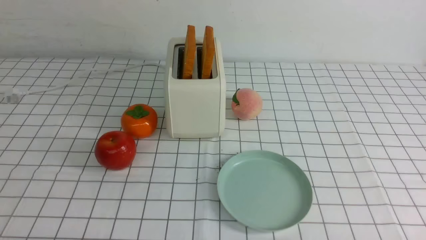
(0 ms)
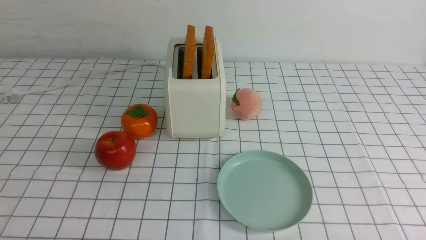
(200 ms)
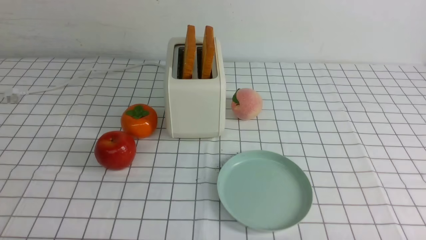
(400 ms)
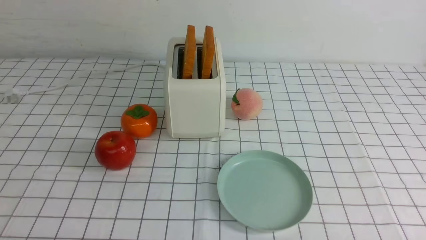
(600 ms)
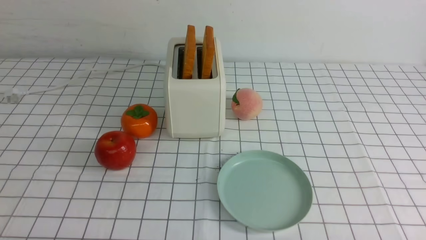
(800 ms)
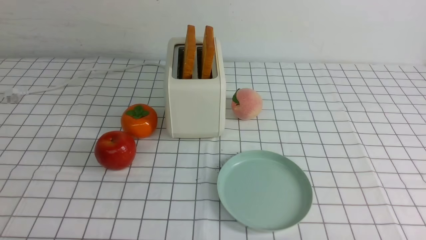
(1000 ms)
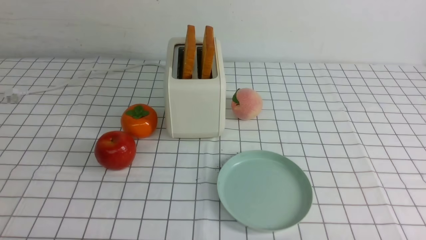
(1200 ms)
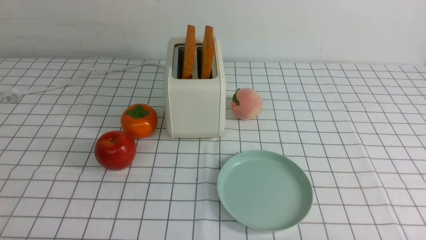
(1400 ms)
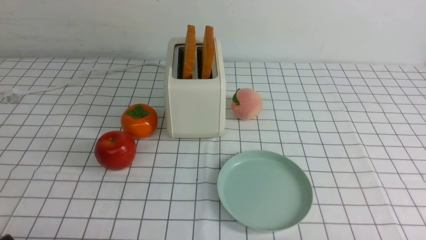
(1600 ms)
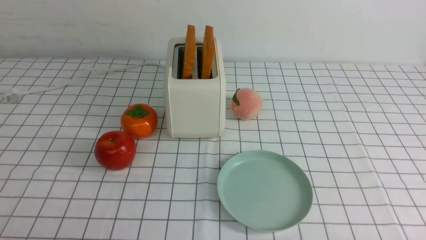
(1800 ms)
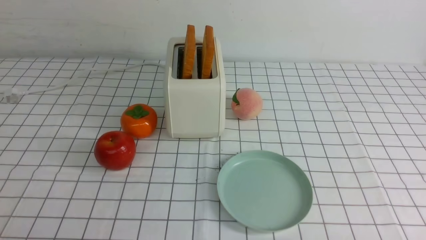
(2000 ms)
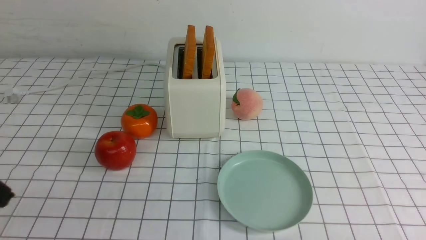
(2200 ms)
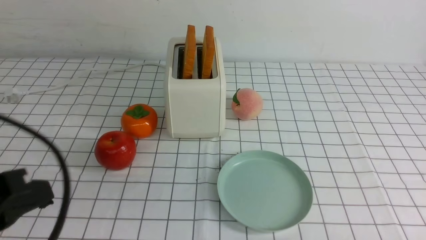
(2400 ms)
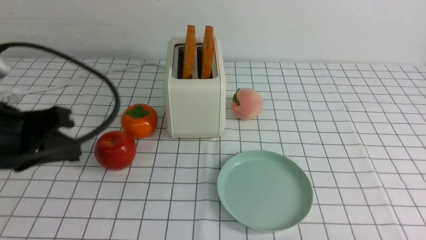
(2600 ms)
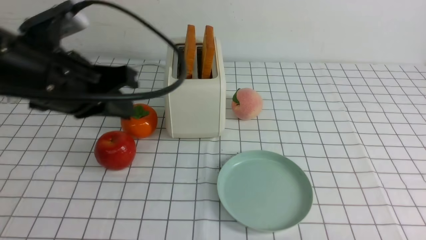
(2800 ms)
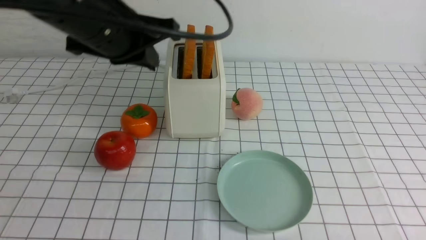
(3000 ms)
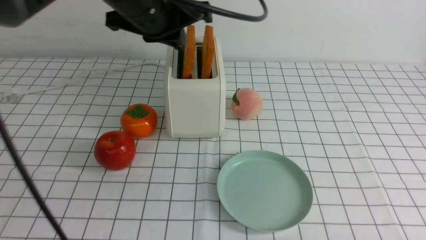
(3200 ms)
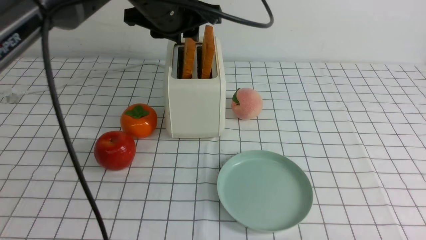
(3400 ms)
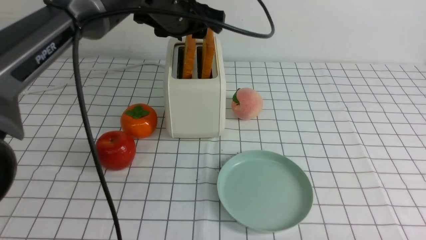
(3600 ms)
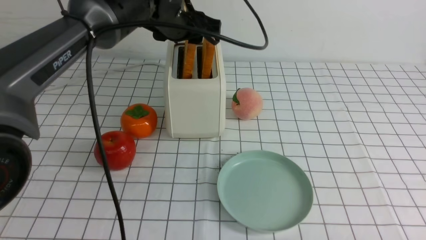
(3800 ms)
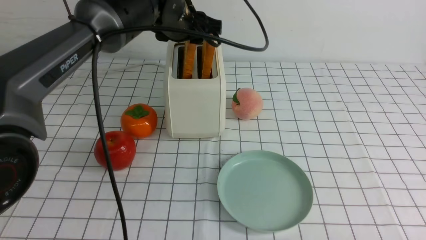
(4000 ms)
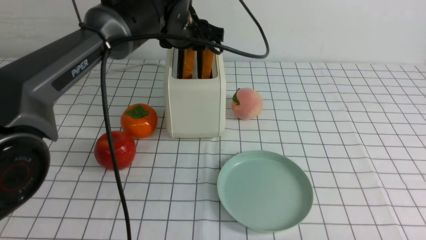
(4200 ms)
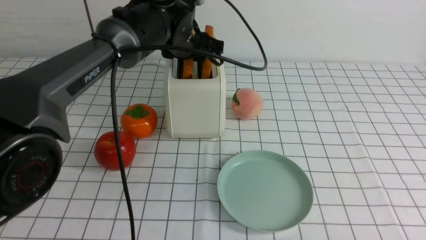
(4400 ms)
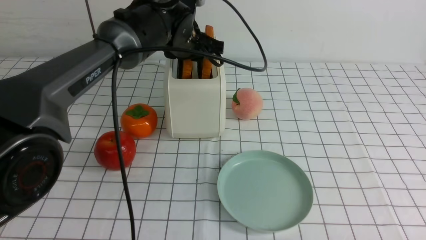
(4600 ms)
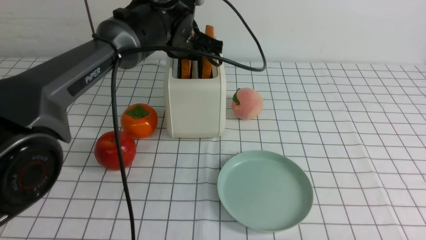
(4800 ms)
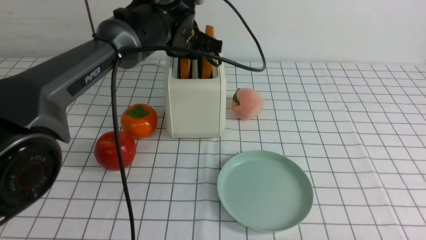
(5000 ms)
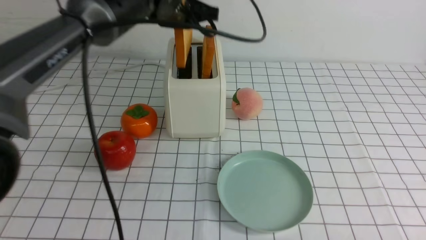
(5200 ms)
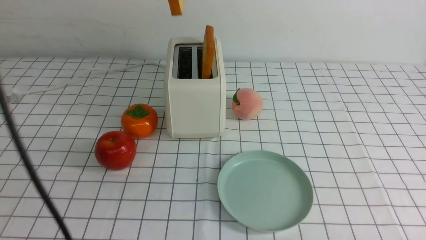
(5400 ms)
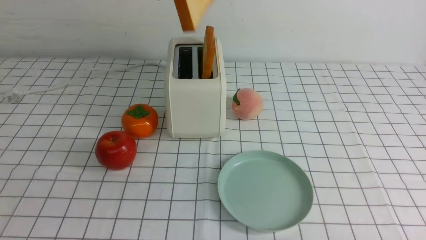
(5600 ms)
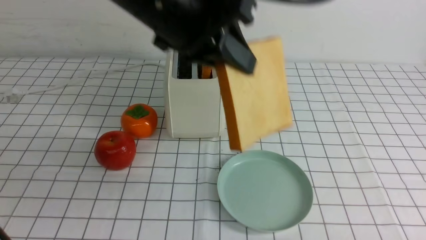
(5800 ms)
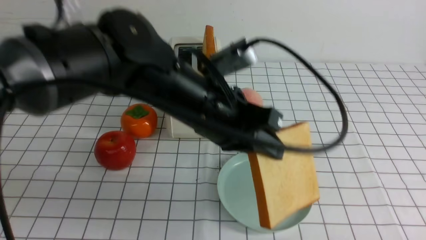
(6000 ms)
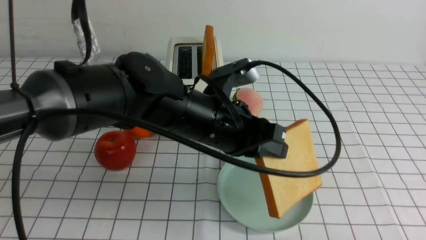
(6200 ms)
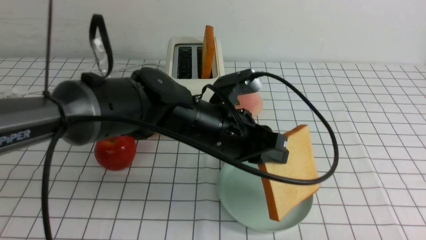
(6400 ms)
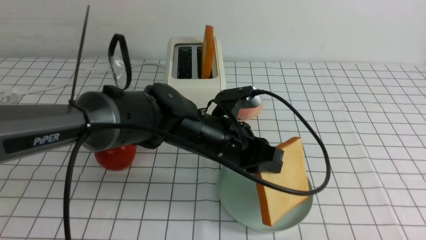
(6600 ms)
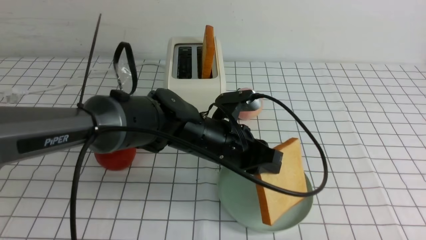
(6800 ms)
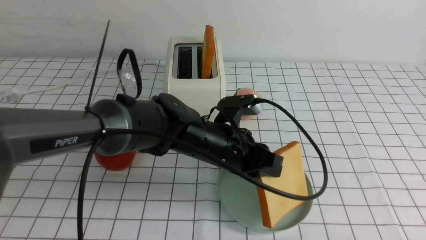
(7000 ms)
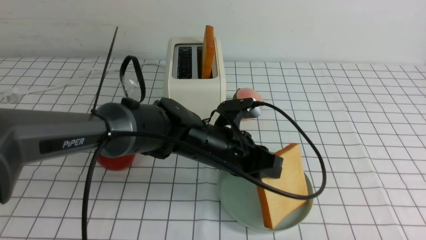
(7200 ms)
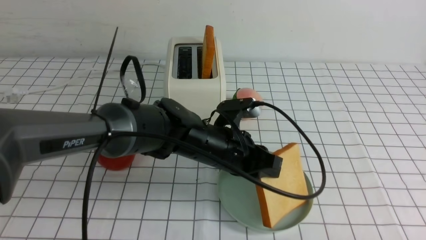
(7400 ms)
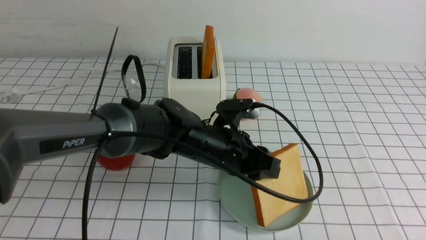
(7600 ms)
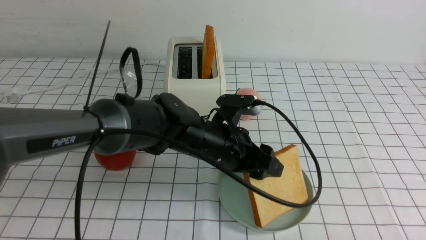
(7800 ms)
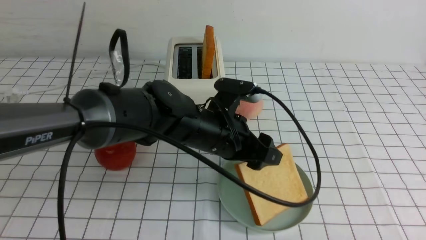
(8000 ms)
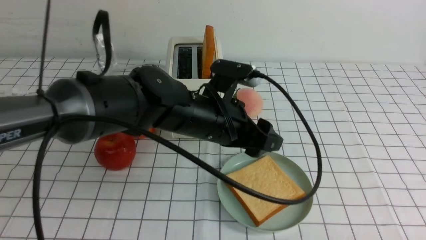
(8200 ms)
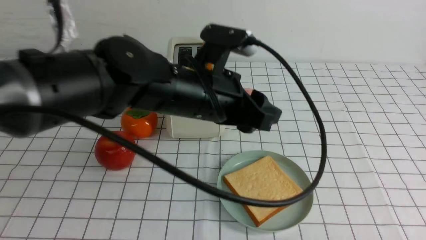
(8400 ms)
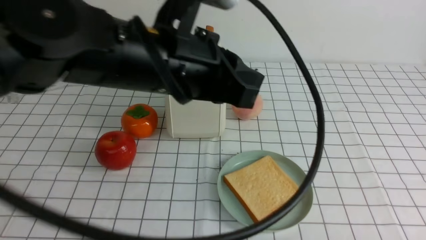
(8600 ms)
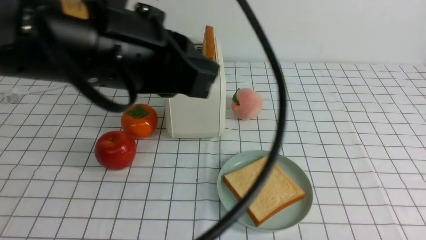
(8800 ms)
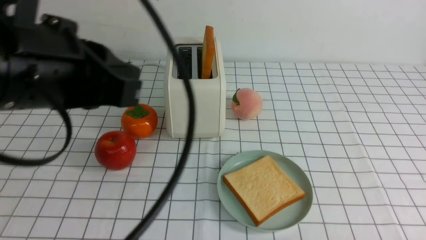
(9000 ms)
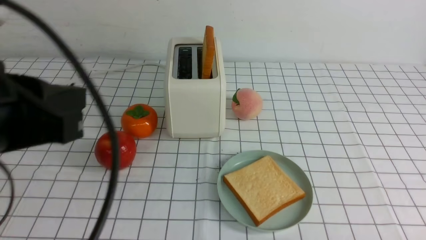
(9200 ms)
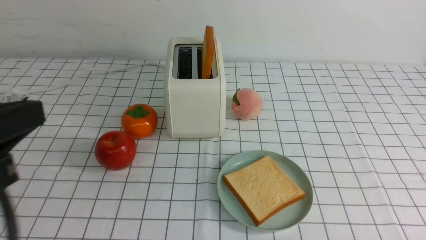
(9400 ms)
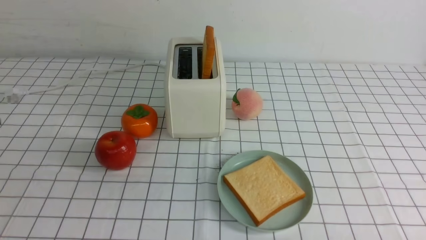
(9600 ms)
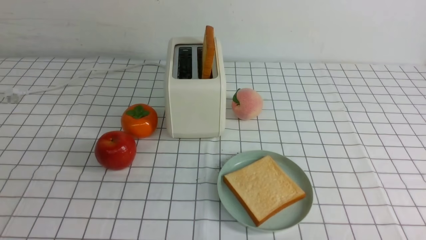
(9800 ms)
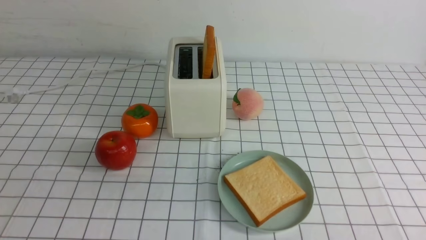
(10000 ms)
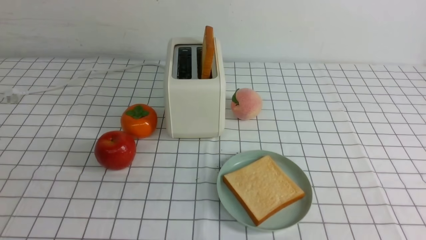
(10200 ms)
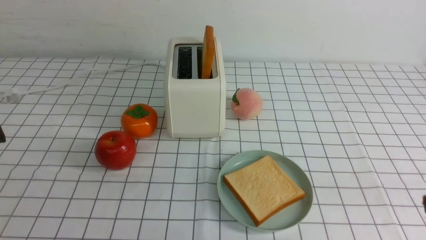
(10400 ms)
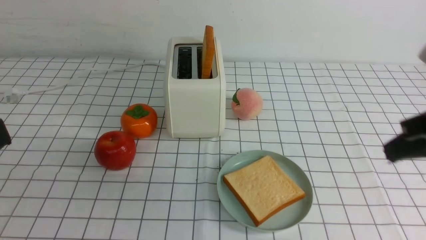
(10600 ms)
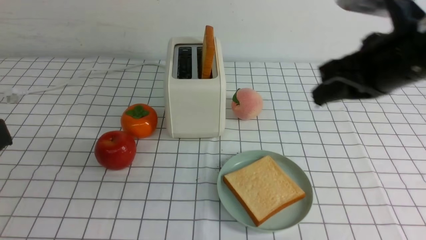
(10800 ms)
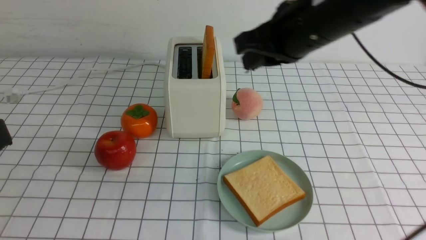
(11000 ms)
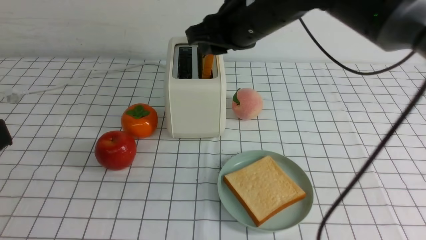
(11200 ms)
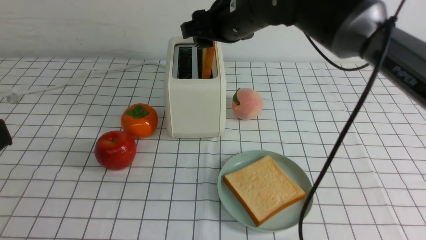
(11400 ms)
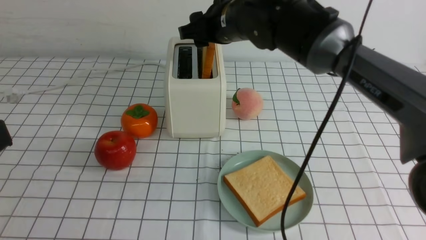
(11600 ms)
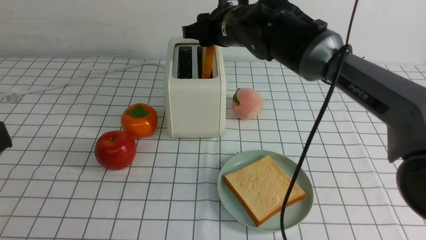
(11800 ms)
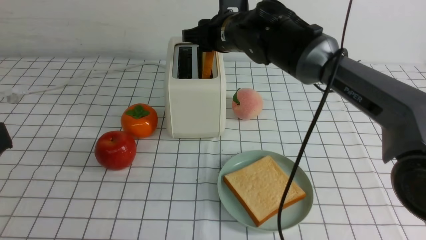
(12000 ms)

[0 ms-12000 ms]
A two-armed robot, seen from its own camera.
Task of the whole recording: take toasted bread from bread machine on white checkered table place on plate.
Step, 0 ms to 5000 ms: use the left arm to take out a slice of bread.
Step, 5400 ms to 8000 ms: use the left arm to put a slice of bread into the empty plate.
1600 ms to 3000 ms: The left gripper is displaced forward, upward and to the right by some 35 cm, and closes.
3000 ms to 4400 ms: The left gripper moves forward, downward and to the right, some 20 cm, and opens its fingers.
4400 ms to 6000 ms: The left gripper goes approximately 20 cm backward, and closes its fingers.
6000 ms to 7600 ms: The left gripper goes some 15 cm downward, and opens its fingers.
7600 ms to 9000 ms: The left gripper heads upward, backward and to the left, covering roughly 30 cm, and closes up.
9000 ms to 10400 ms: The left gripper travels backward and to the left by approximately 15 cm. Meanwhile the right gripper goes approximately 20 cm upward and forward.
10400 ms to 12000 ms: The right gripper is displaced forward and to the left by about 40 cm, and opens up.

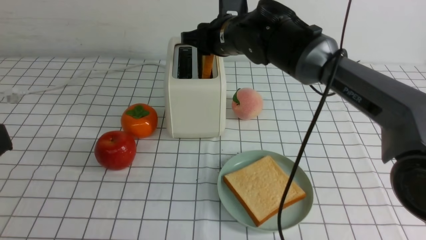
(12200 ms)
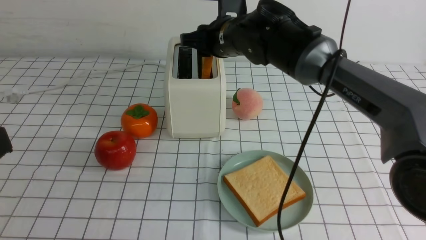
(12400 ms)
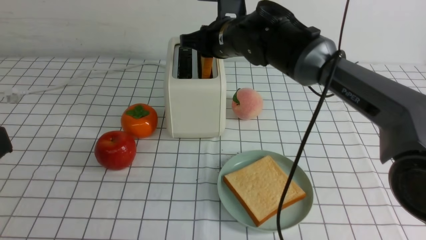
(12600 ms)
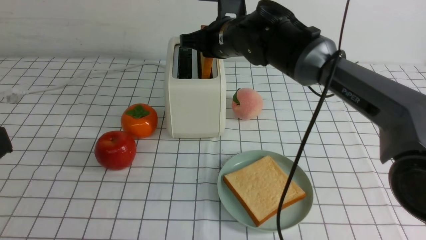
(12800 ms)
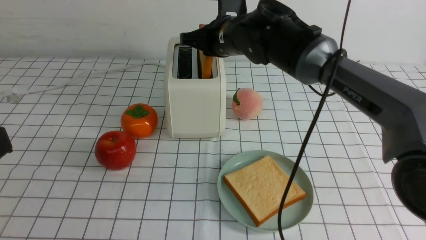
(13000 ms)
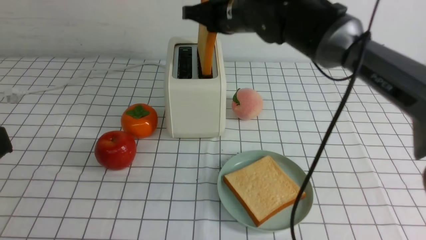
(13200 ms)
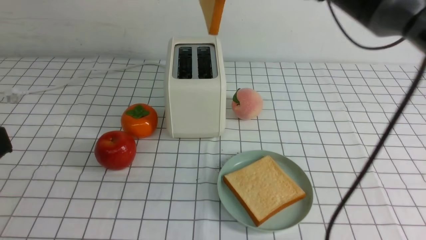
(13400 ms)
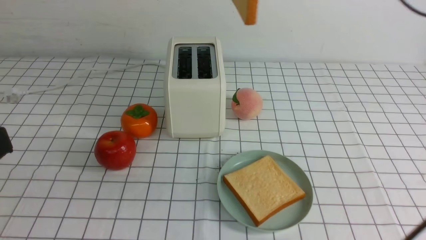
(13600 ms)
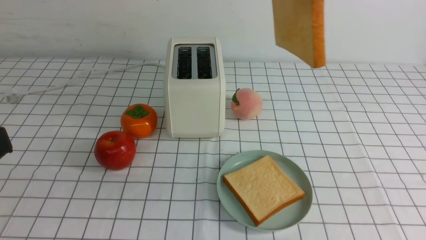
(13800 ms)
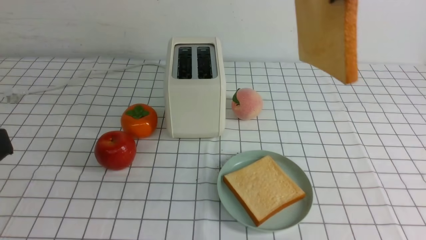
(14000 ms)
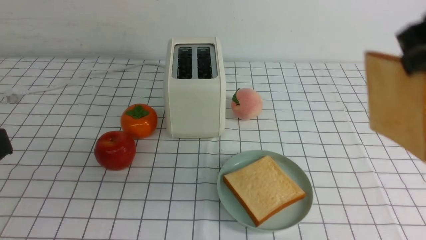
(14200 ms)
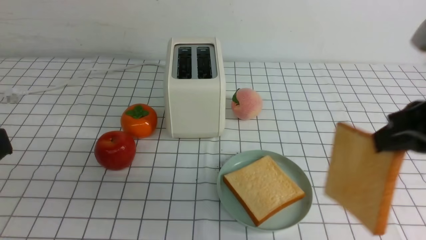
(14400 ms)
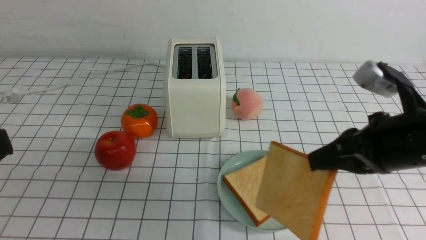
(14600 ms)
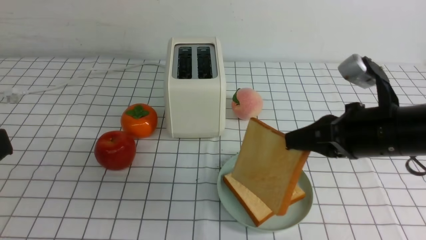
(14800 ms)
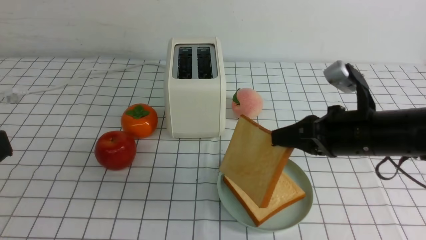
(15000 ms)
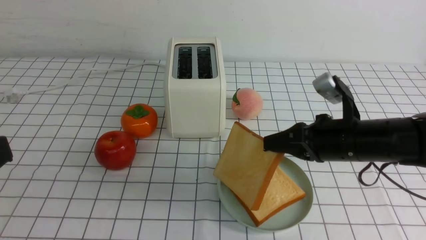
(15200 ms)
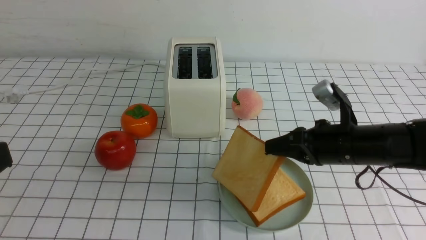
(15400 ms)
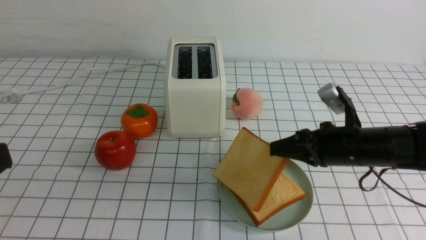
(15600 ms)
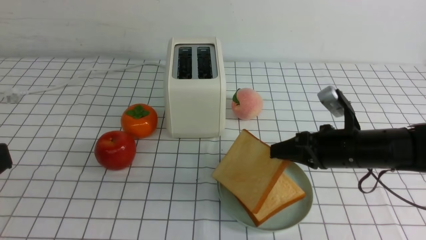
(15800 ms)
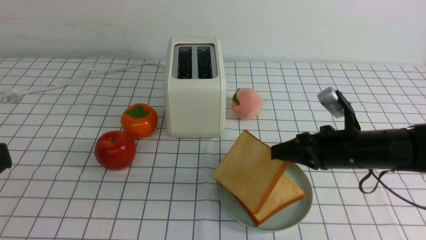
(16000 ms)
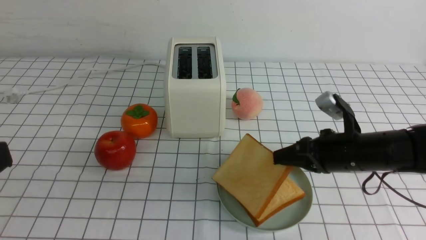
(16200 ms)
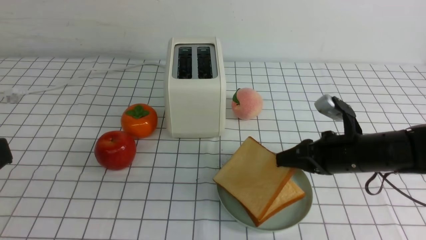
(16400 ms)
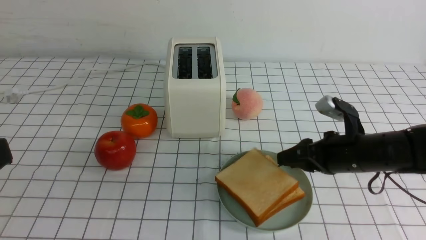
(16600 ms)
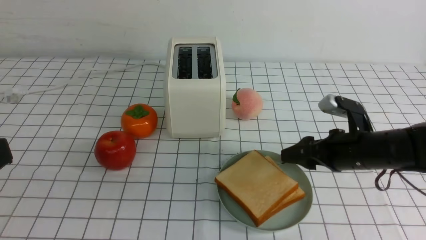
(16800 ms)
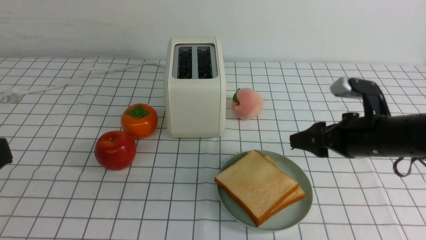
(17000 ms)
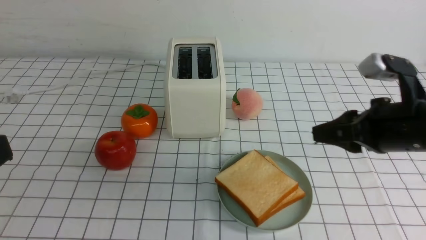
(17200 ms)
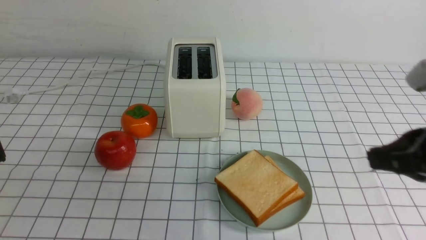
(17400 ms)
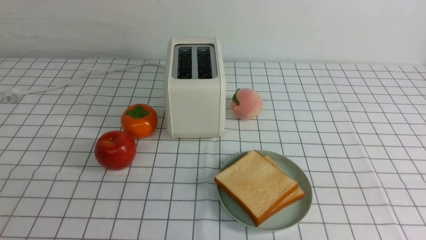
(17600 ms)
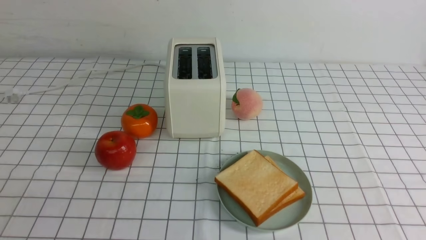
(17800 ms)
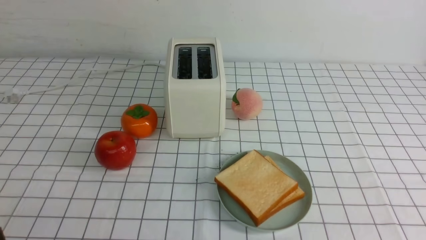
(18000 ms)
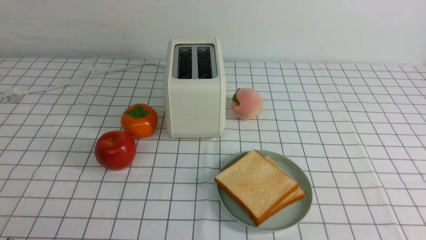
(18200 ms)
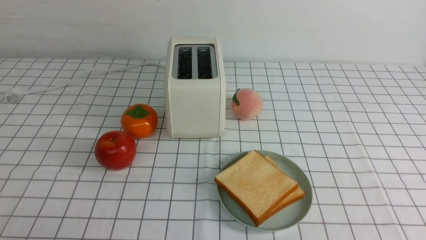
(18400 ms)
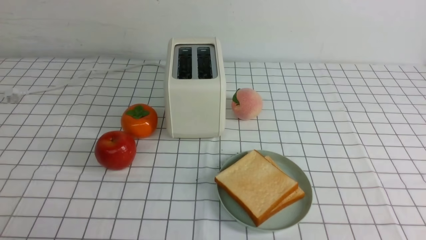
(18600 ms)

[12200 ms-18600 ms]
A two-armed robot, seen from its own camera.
Task of the whole recording: take toasted bread from bread machine on white checkered table place on plate.
Step, 13400 ms to 16800 ms: use the right arm to put a slice of bread into the plate.
12200 ms to 13800 ms: The right gripper goes approximately 25 cm upward, backward and to the right, and closes its fingers.
13800 ms to 15400 ms: The right gripper goes some 30 cm downward.
15400 ms to 17000 ms: The right gripper opens.
17000 ms to 18600 ms: The left gripper goes some 10 cm downward, while the right gripper goes some 25 cm backward, and closes its fingers.
